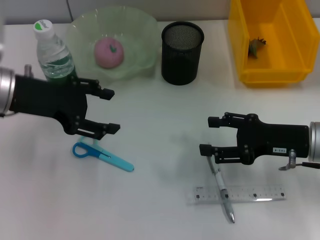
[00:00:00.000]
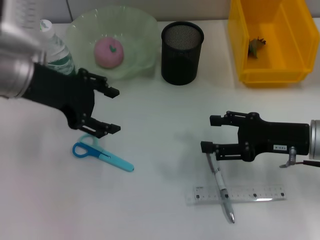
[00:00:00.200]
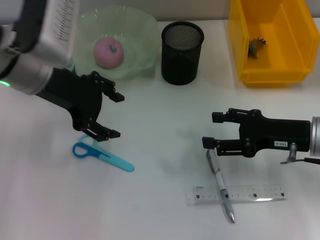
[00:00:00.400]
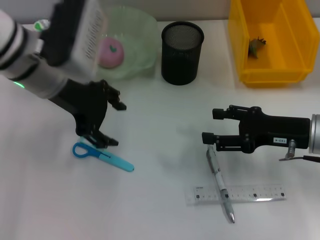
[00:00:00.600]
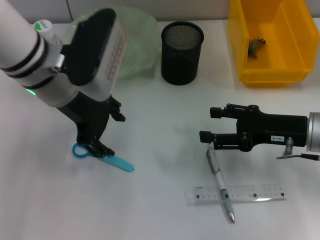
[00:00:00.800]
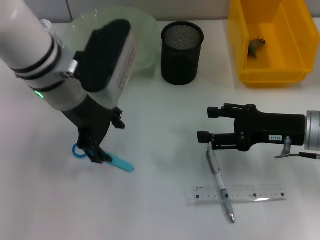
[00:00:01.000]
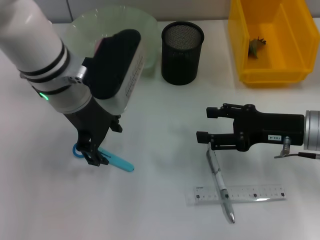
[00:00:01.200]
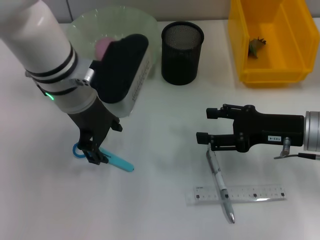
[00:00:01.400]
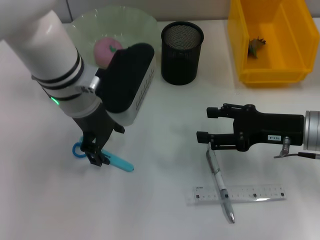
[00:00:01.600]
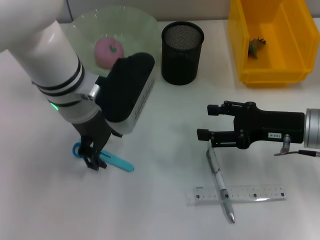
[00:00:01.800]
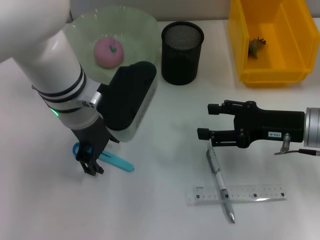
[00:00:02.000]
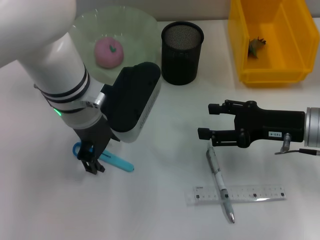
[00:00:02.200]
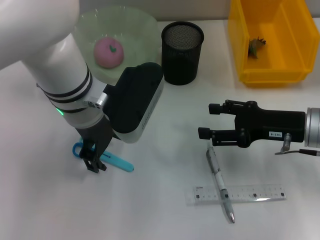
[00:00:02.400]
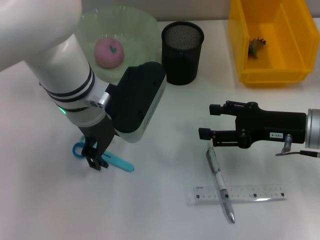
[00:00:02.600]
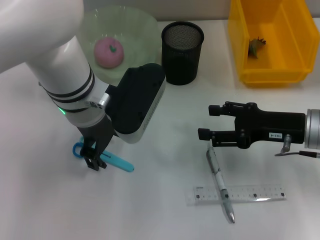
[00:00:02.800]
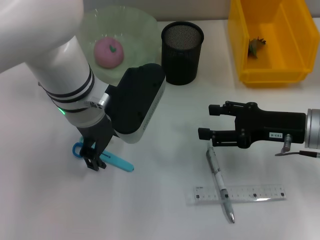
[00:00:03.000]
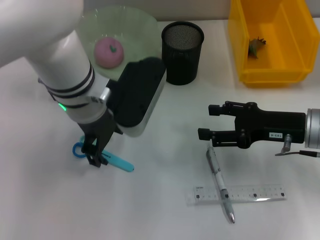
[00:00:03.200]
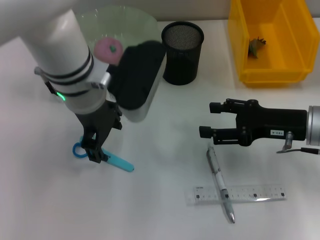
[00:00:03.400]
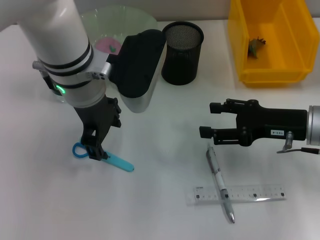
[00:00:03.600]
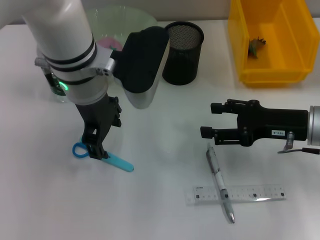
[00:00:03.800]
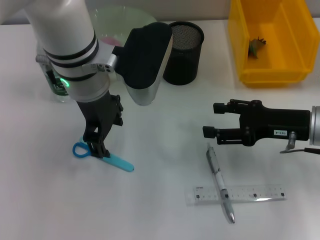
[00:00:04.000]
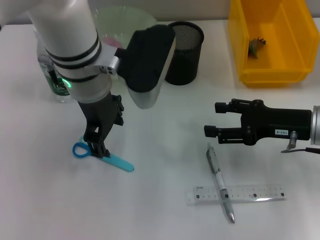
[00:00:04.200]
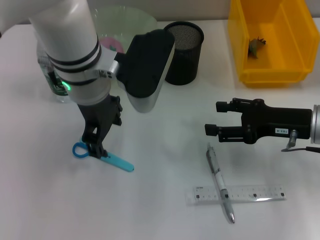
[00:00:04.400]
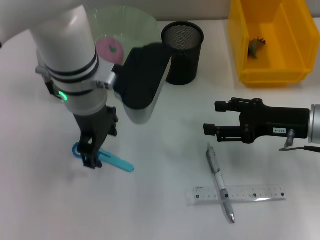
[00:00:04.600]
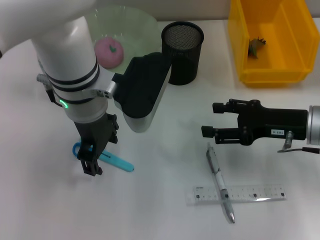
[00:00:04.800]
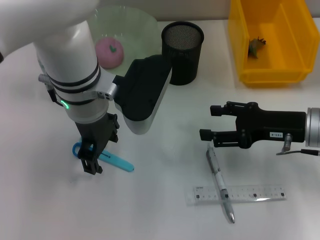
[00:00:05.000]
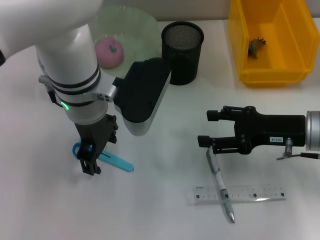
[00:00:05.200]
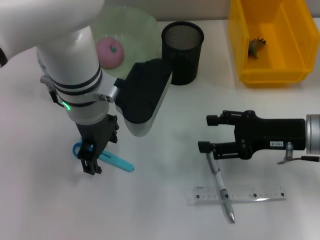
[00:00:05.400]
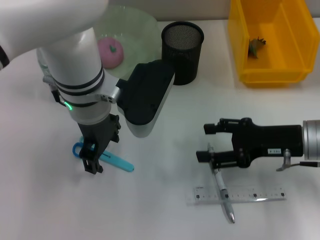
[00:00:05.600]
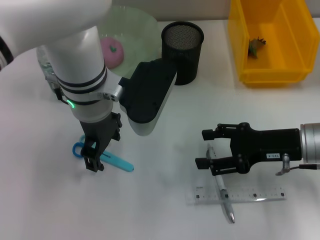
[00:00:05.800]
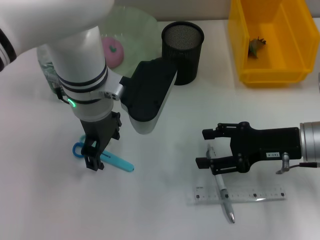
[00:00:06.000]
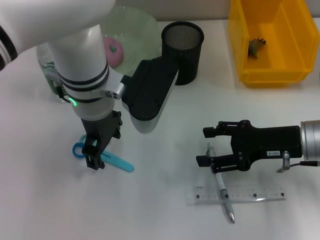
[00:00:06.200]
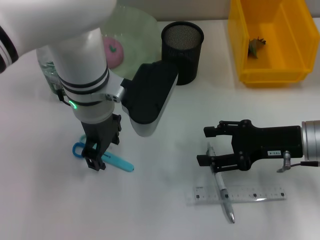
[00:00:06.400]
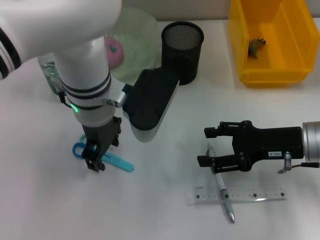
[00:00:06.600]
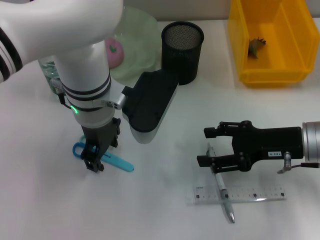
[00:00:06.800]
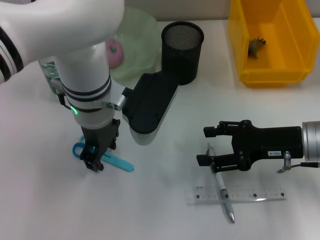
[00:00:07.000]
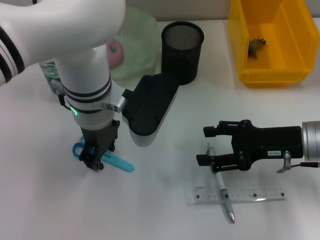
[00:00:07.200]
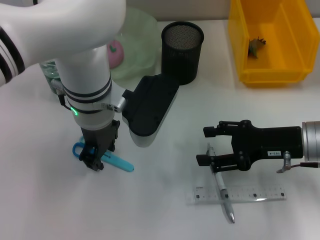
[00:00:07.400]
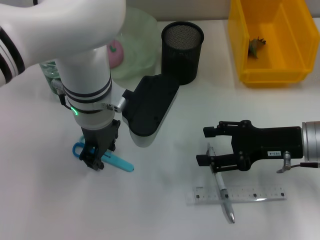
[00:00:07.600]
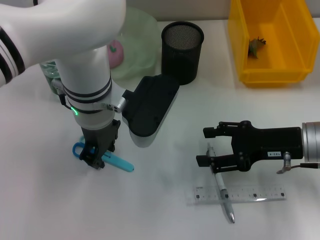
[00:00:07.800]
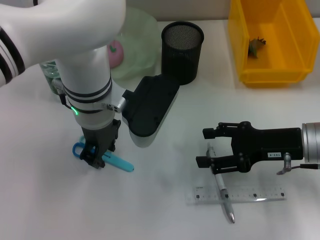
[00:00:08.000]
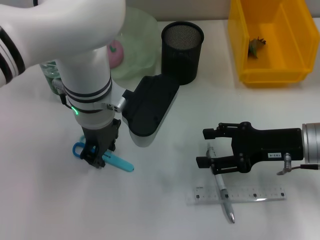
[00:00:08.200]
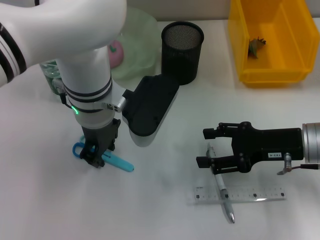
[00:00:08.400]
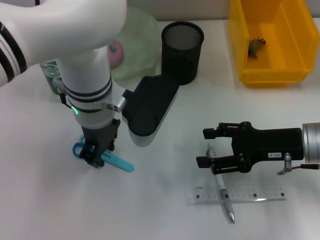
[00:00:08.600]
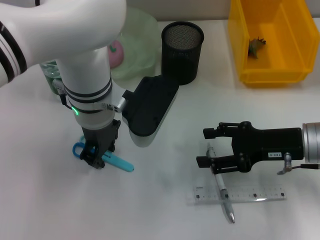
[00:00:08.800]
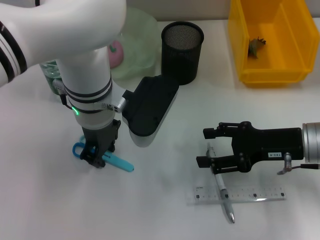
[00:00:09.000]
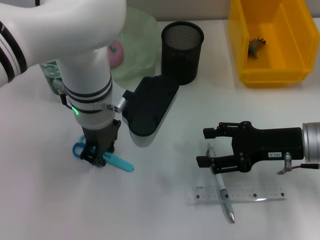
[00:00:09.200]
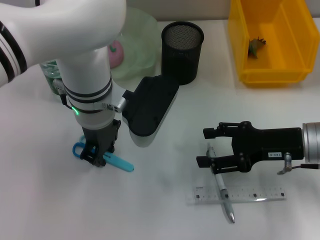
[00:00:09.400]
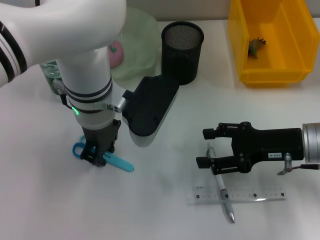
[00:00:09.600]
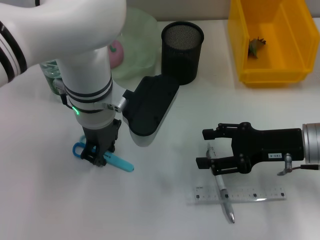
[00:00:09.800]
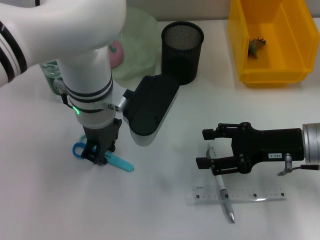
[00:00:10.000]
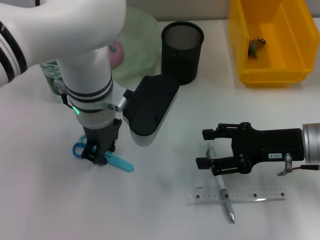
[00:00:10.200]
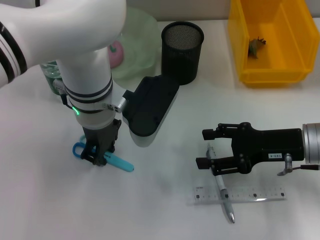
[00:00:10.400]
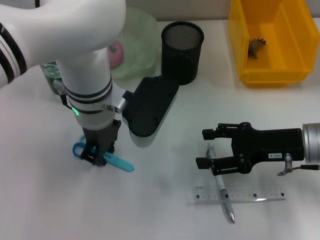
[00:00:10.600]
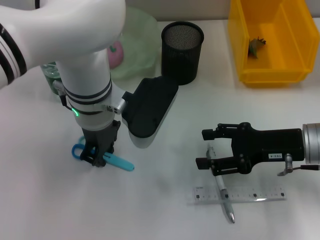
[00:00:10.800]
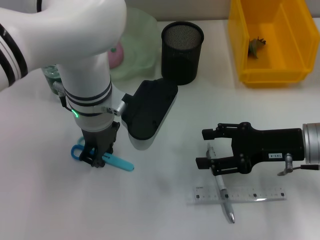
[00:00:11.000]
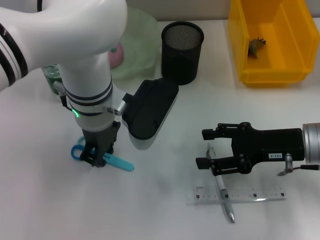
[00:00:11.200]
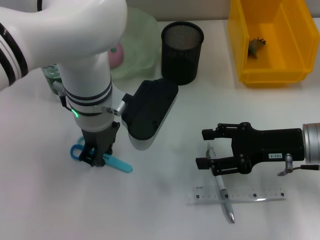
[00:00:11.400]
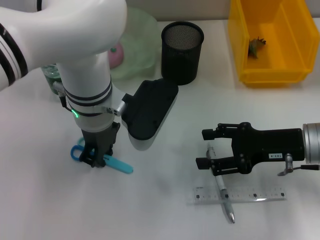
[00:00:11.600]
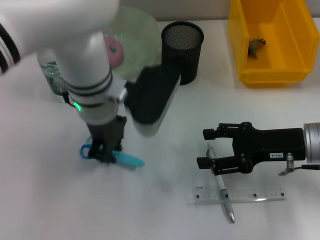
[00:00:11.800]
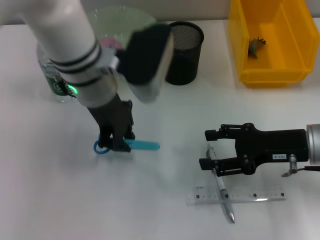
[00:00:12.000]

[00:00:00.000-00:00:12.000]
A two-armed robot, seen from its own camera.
Step, 00:00:00.000 to 00:00:11.000: Grab the blue scissors with the left hand.
00:00:00.000 to 00:00:01.600: The left gripper is displaced to the right by about 10 cm.
00:00:01.600 to 00:00:04.400: The grippers make only small movements.
00:00:06.000 to 00:00:07.600: The left gripper closes.
00:00:07.600 to 00:00:10.400: The two grippers keep their place.

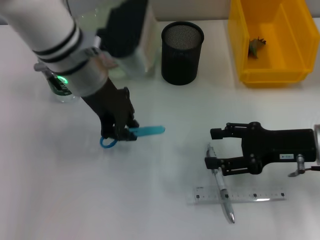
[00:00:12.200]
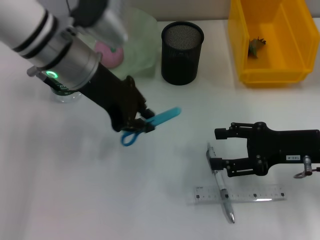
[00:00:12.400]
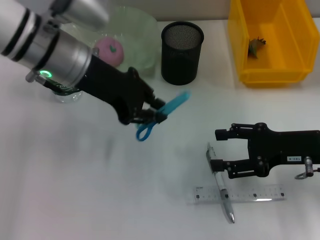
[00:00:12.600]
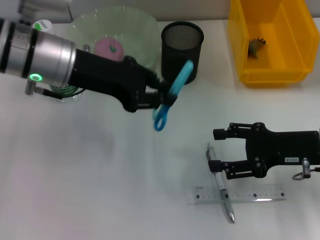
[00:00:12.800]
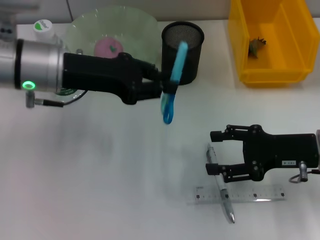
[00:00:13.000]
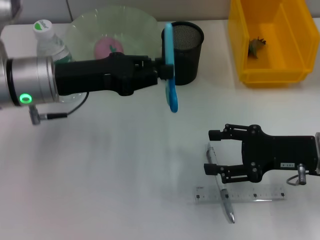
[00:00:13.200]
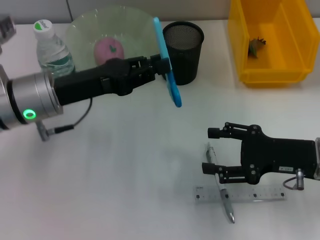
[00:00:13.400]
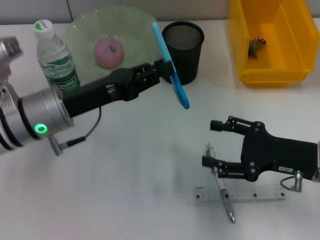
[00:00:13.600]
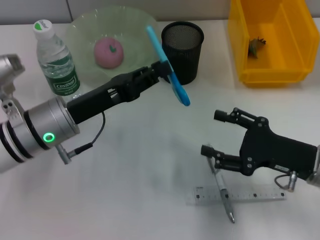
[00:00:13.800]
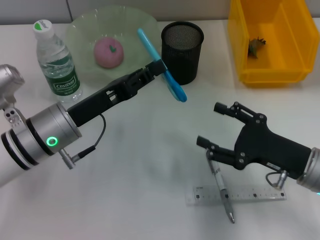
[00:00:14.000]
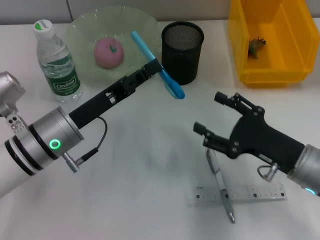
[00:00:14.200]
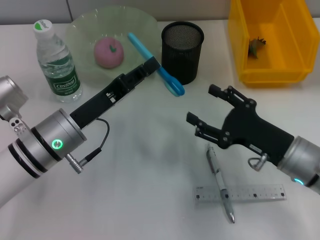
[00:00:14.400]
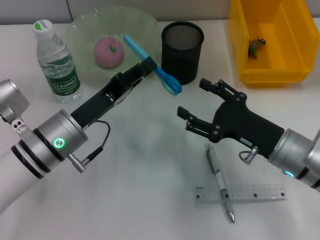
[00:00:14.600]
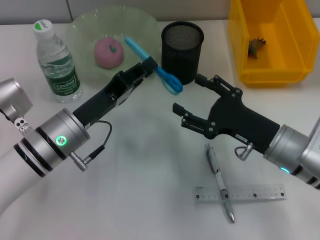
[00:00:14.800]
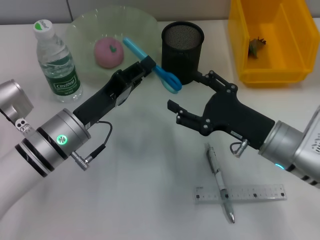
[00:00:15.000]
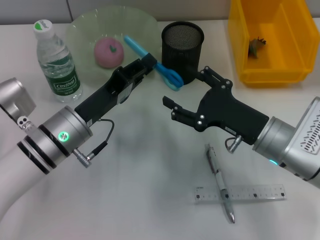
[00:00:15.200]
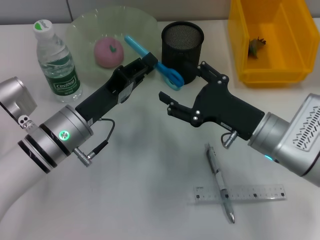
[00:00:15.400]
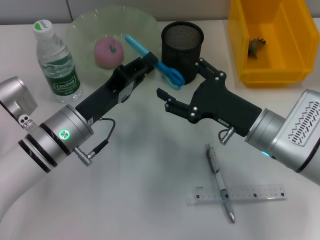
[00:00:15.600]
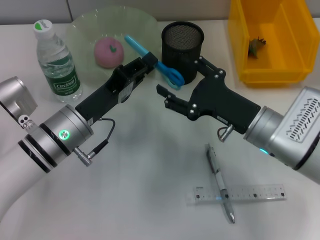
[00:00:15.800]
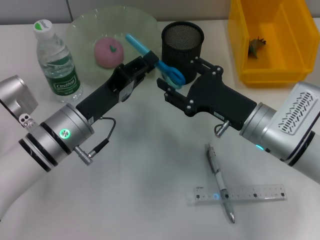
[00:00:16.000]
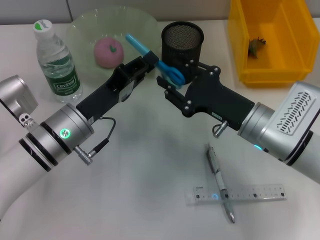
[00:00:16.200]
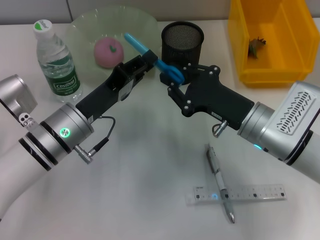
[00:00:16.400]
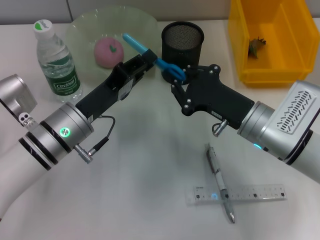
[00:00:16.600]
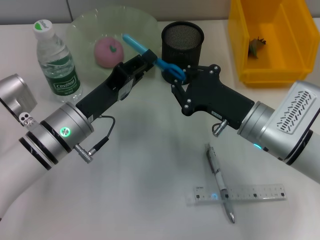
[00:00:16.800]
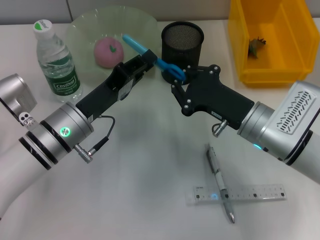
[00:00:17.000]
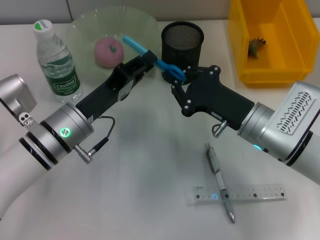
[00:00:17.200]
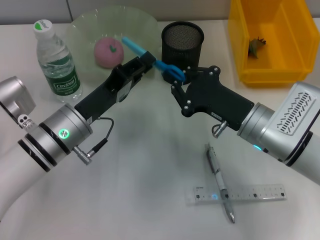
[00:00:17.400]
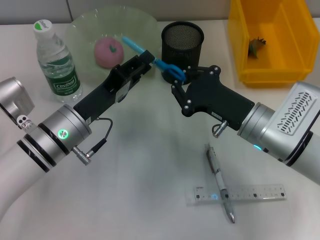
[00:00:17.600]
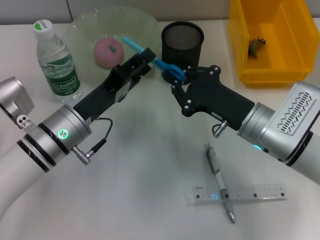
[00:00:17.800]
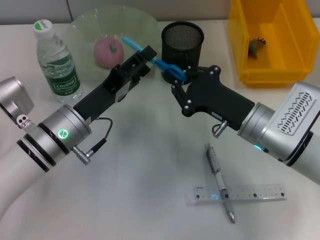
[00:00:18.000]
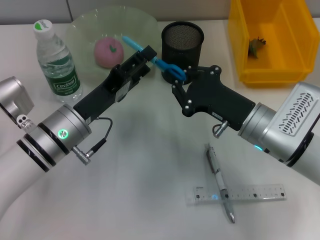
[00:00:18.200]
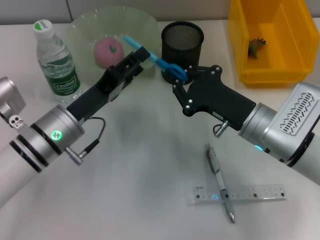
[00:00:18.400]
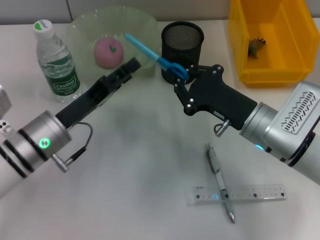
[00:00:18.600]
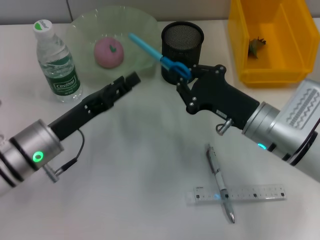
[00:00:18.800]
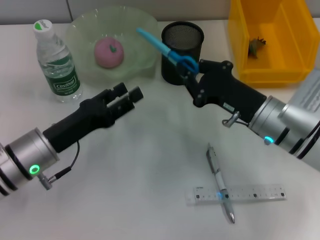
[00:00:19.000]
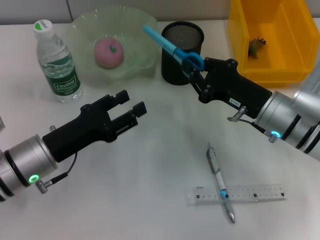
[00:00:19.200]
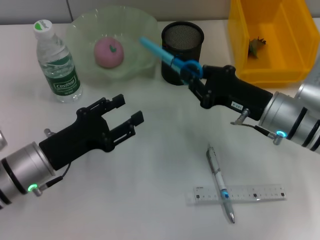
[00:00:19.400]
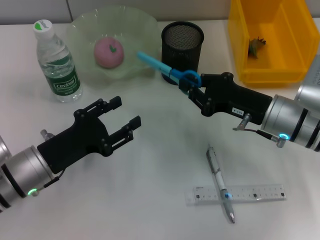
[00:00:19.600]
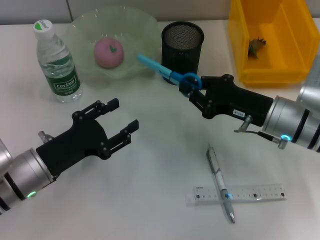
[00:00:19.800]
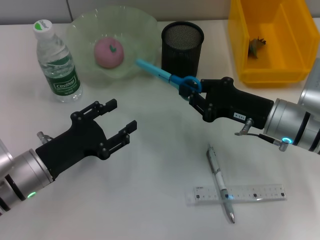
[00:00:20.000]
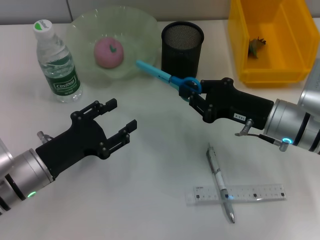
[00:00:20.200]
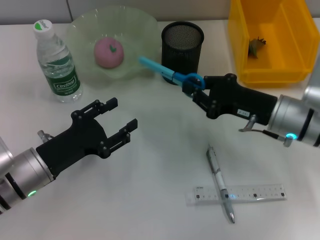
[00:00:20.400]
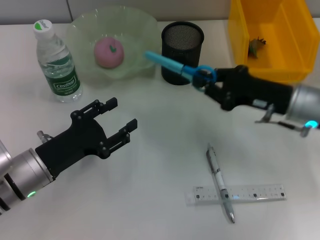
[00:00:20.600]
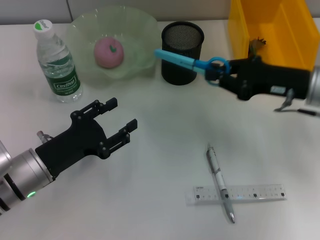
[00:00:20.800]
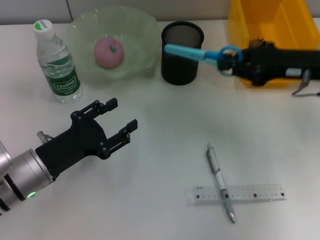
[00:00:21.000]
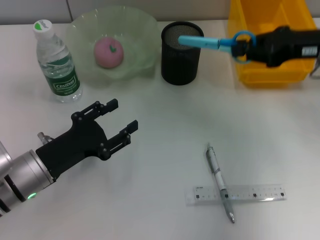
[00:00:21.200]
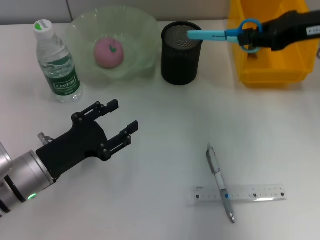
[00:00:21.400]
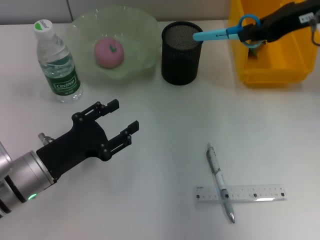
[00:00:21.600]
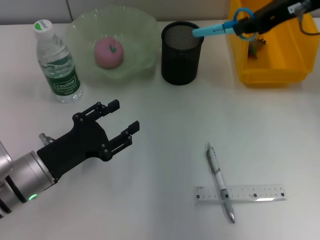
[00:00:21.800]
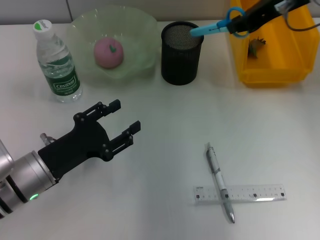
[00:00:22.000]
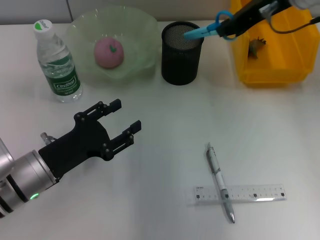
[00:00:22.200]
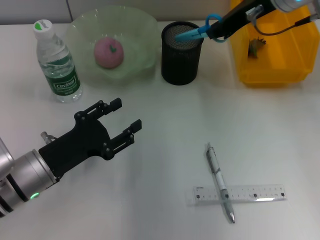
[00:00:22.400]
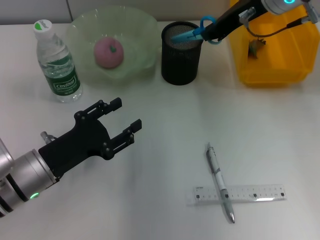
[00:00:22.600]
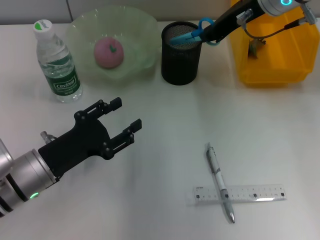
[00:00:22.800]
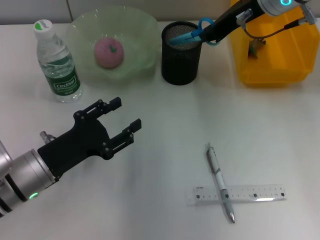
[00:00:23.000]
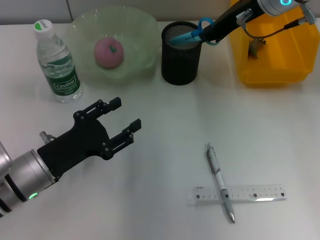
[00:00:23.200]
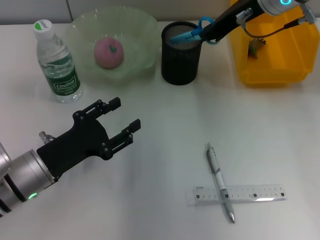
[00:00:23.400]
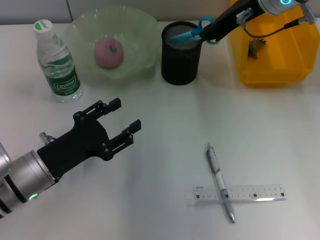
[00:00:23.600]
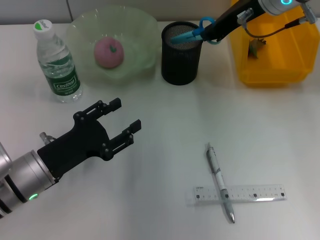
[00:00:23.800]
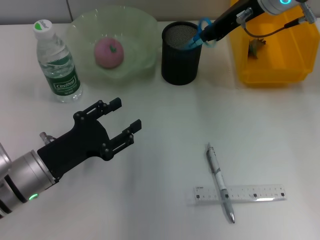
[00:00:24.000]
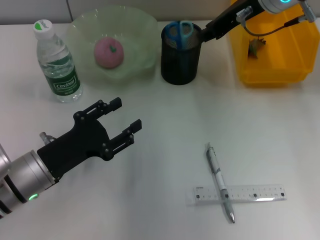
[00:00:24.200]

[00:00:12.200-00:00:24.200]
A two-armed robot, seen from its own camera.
Step, 00:00:12.200 to 00:00:18.000: Pass the blue scissors from the left hand to the right hand.
00:00:12.200 to 00:00:13.800: The right gripper shifts by approximately 5 cm. Meanwhile the left gripper heads downward, backward and to the left, covering some 15 cm.
00:00:13.800 to 00:00:15.200: The right gripper moves to the left, some 5 cm.
00:00:15.200 to 00:00:16.600: The right gripper closes.
00:00:16.600 to 00:00:18.200: The left gripper opens up.
00:00:18.200 to 00:00:19.800: The left gripper moves to the left and backward, roughly 10 cm.
00:00:19.800 to 00:00:21.200: The right gripper moves upward and to the right, roughly 15 cm.
00:00:21.200 to 00:00:22.600: The right gripper shifts approximately 15 cm to the left and forward.
00:00:22.600 to 00:00:24.200: The two grippers keep their place.
